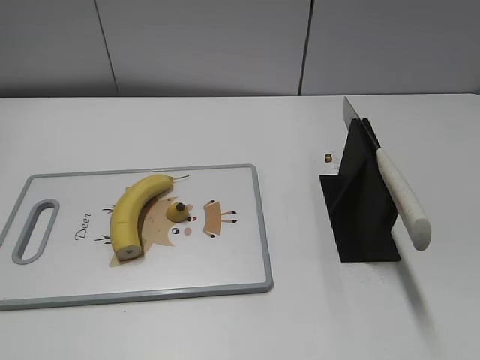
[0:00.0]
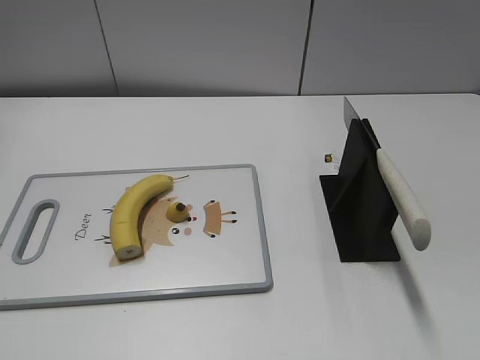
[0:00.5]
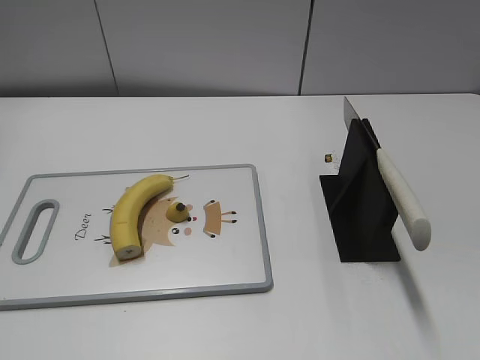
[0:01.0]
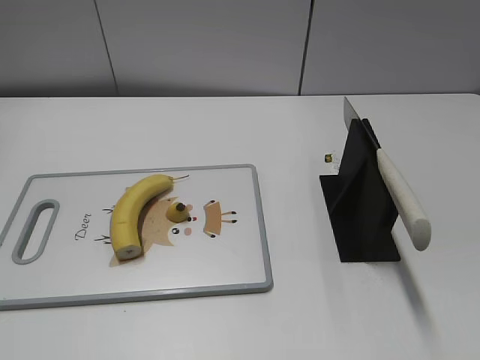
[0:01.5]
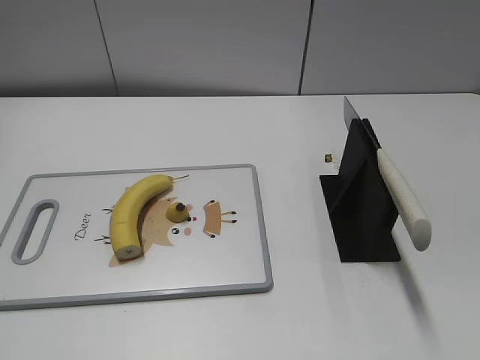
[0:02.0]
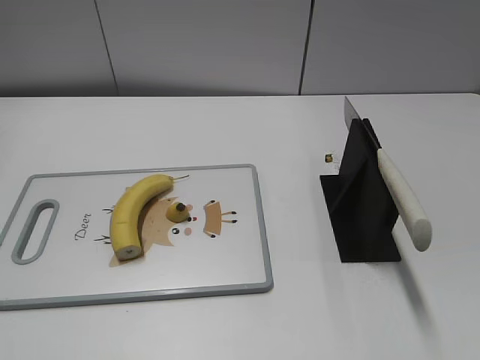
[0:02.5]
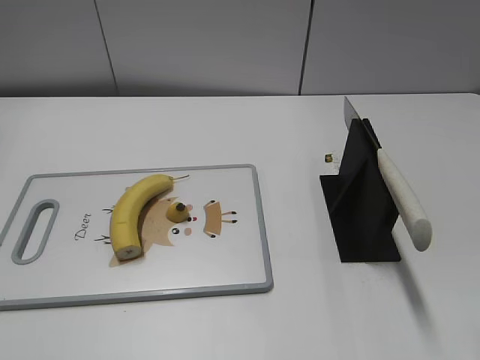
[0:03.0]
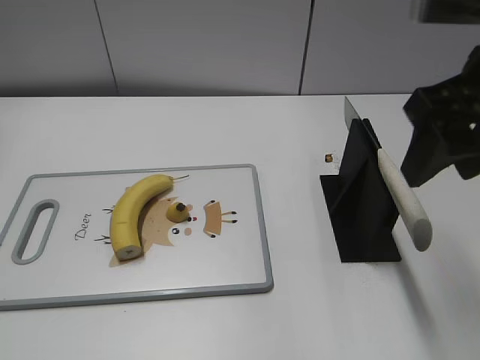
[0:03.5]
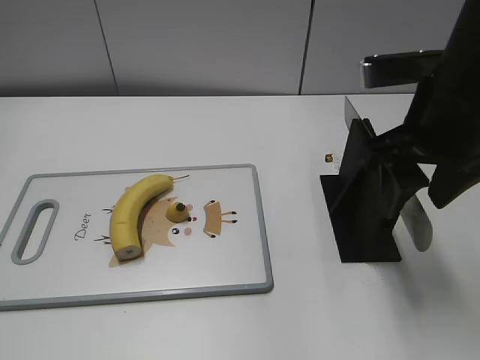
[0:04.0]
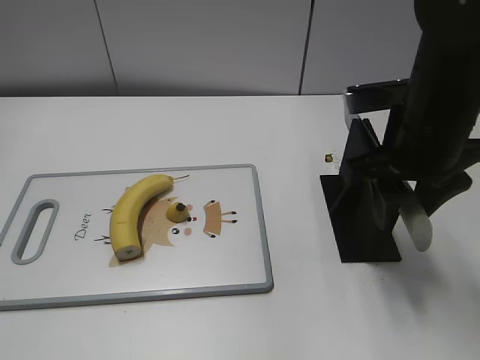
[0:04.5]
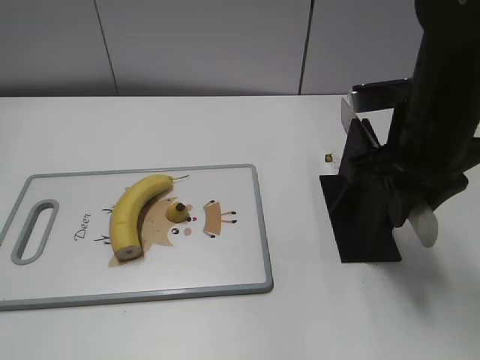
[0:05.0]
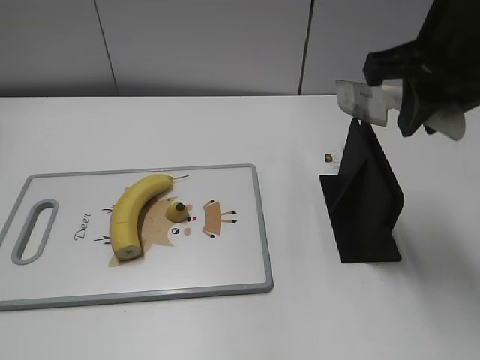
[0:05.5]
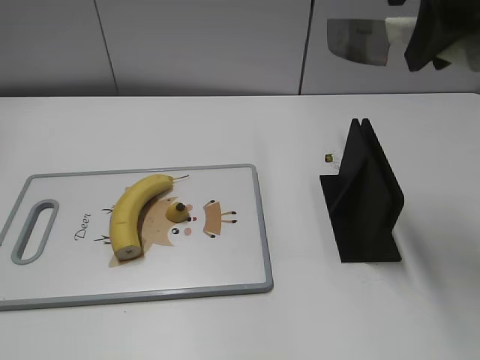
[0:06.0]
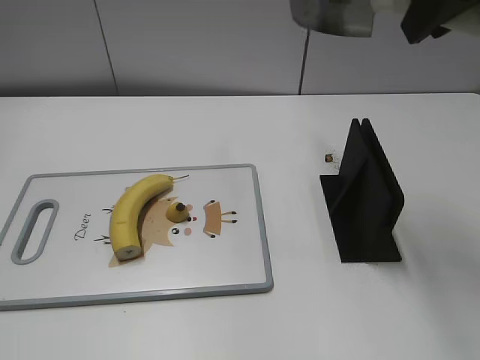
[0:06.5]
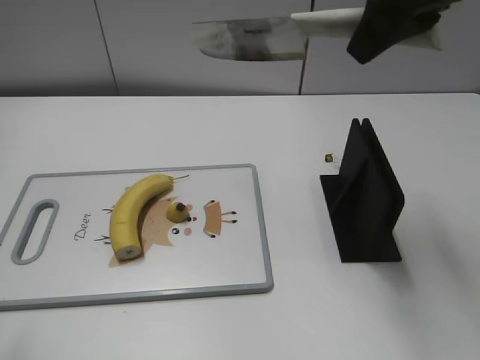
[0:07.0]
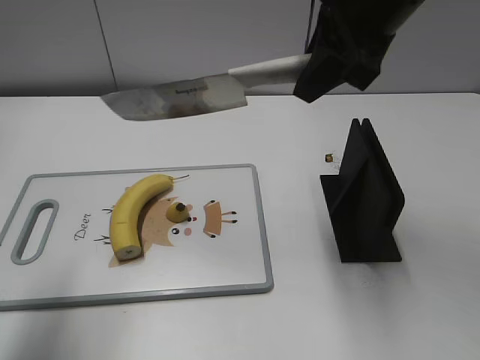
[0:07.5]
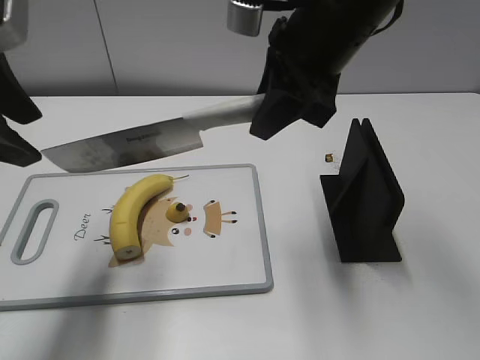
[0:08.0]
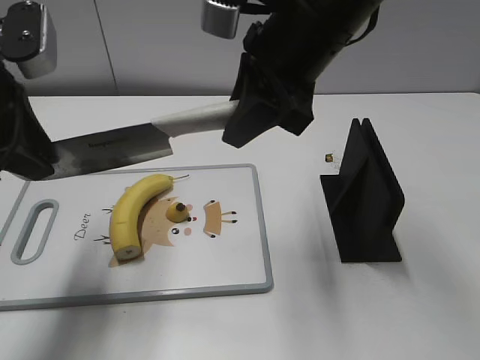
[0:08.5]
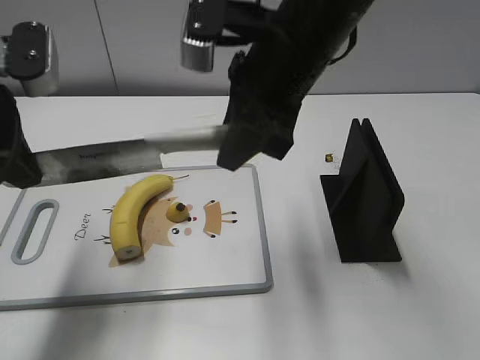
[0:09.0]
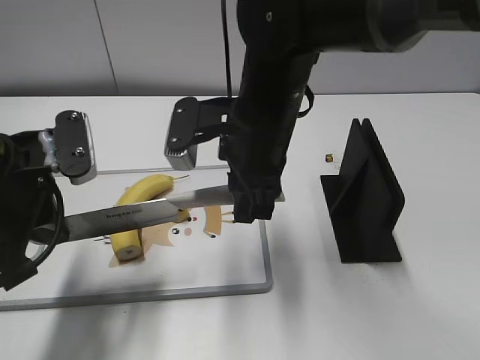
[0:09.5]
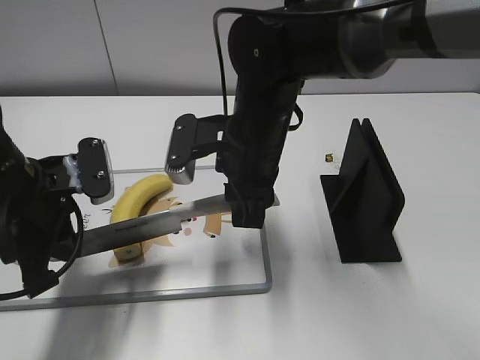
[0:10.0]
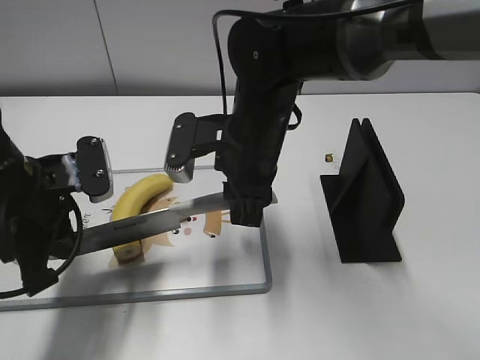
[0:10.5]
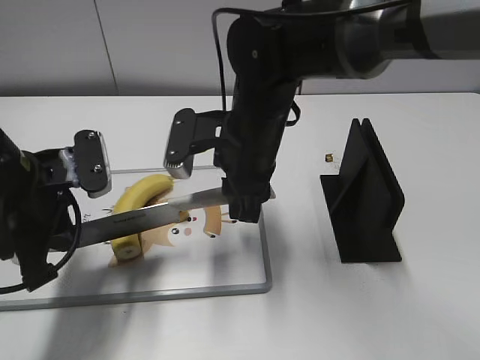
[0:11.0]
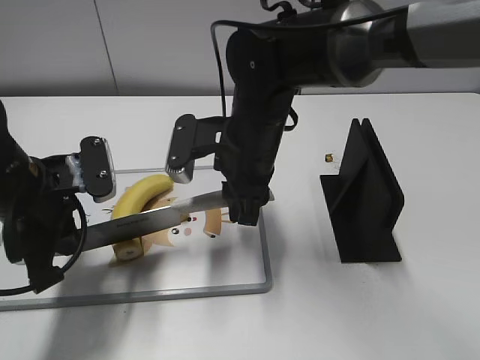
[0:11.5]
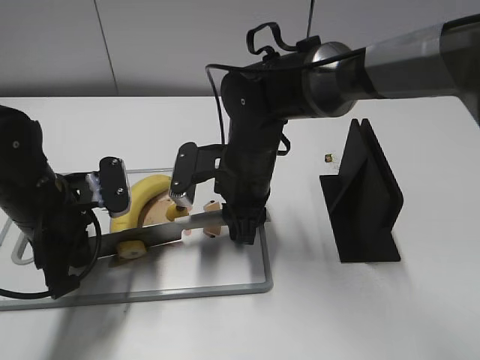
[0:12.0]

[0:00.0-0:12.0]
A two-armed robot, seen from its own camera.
Task of the whole recording: cut banana.
Step, 0:00.0 to 0:05.5: Grab the knife handle with your right hand.
Step, 0:06.5 to 0:10.5: Lift the knife with your right hand.
0:02.0 to 0:04.0: The right gripper travels forward and to the left by roughly 25 cm.
0:04.0 to 0:06.0: The right gripper goes approximately 10 cm upward, and closes its fingers.
0:06.0 to 0:08.0: The right gripper travels to the left and downward by some 10 cm. Meanwhile the left gripper heads forward, covering some 25 cm.
0:08.0 to 0:10.0: The left gripper is displaced downward by approximately 15 cm, and closes its fingers; the right gripper moves downward and to the left, roughly 15 cm.
0:10.0 to 0:12.0: The right gripper moves downward, approximately 5 cm.

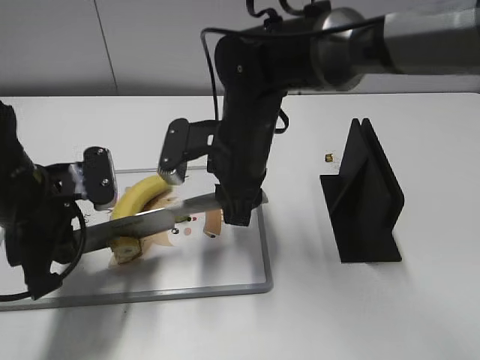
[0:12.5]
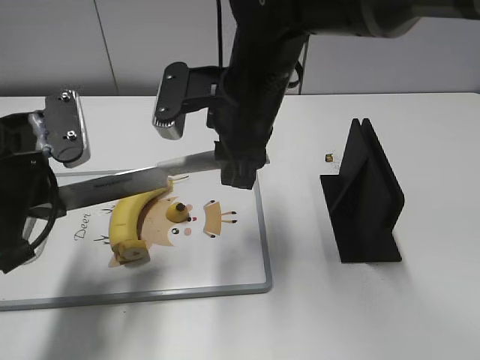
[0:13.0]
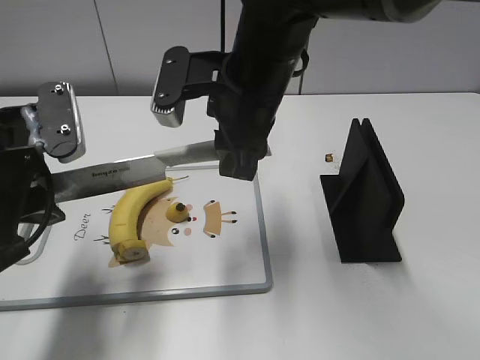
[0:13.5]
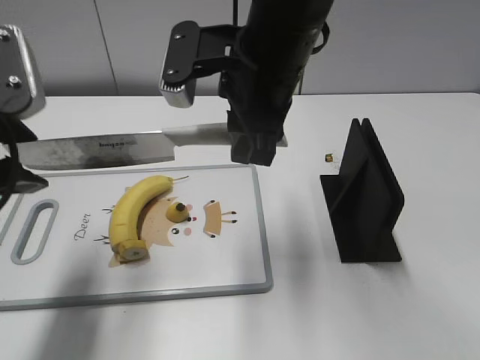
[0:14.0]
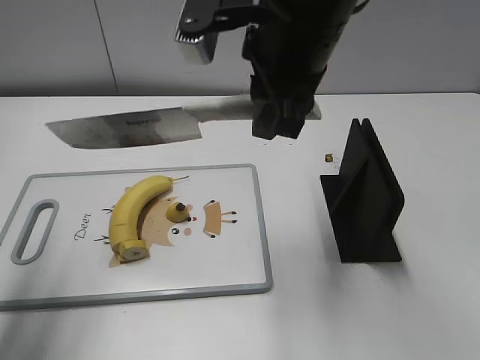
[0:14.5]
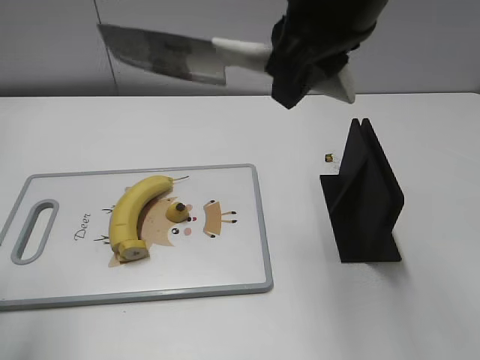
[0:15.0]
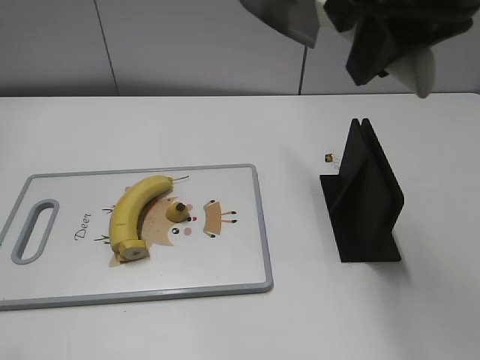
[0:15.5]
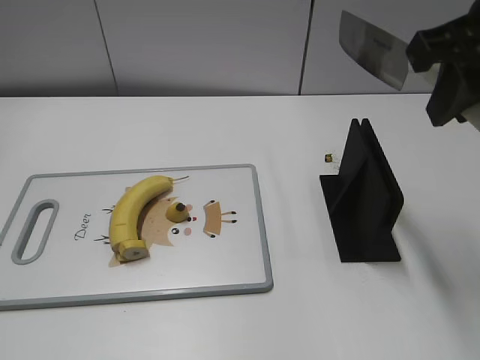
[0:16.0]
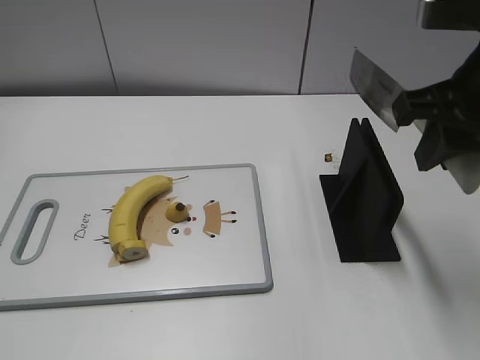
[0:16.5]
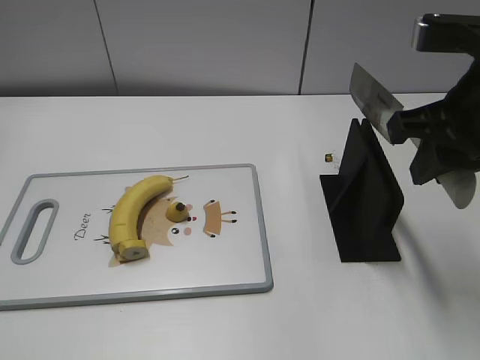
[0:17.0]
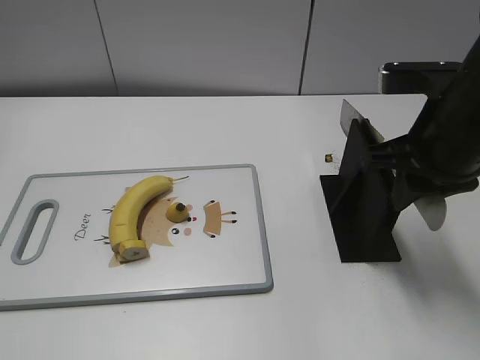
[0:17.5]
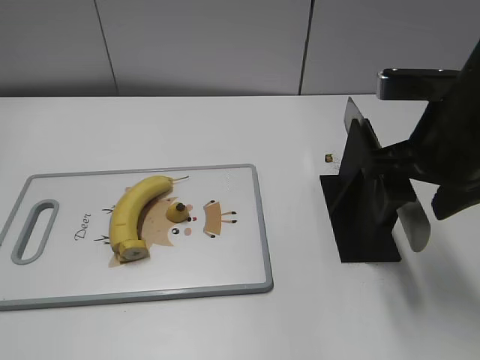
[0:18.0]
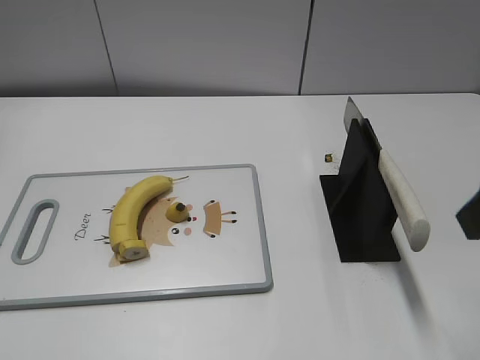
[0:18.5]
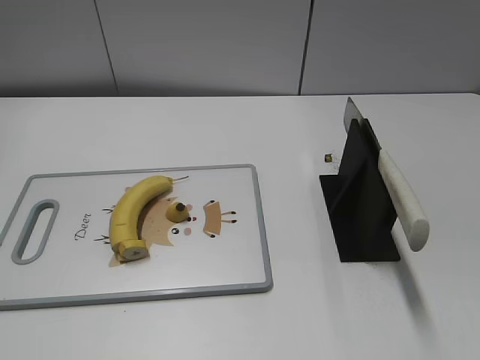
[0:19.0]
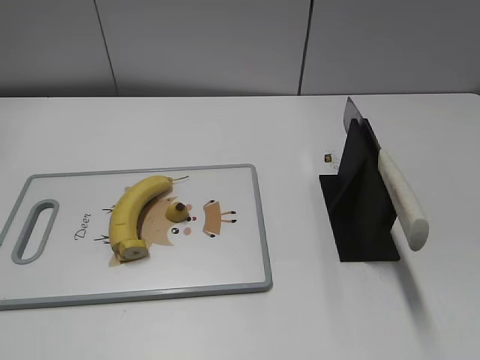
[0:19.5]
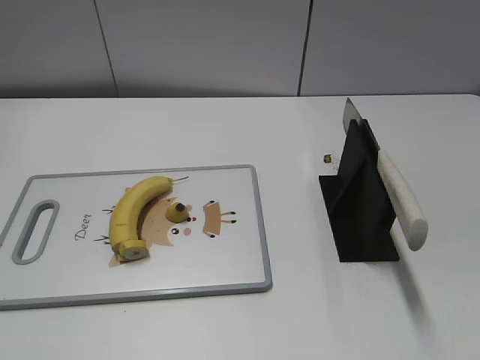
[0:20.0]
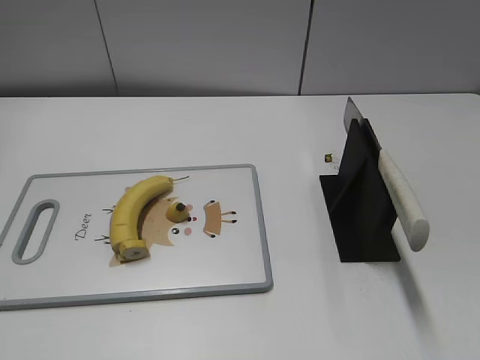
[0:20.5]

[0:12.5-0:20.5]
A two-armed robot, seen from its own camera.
Task of the whole recording: cut banana.
Step, 0:12.5 to 0:14.5: Cut the banana with your right hand.
Step, 0:15.0 to 0:16.0: Secure the blade with your left hand.
Step, 0:17.0 to 0:20.5: Place the knife on the storage rack with your right hand.
0:12.5 to 0:14.5: The right gripper shifts approximately 15 cm upward. The left gripper heads upward and to the left, covering approximately 20 cm, and opens its fingers.
0:14.5 to 0:16.5: The left gripper shifts roughly 20 cm backward; the right gripper goes some 15 cm to the right.
0:16.5 to 0:18.5: The right gripper travels backward by approximately 10 cm, and opens up.
